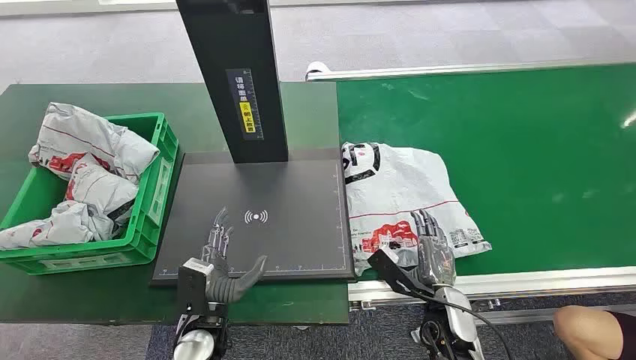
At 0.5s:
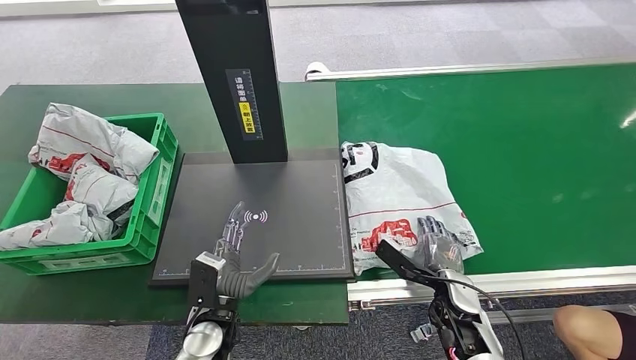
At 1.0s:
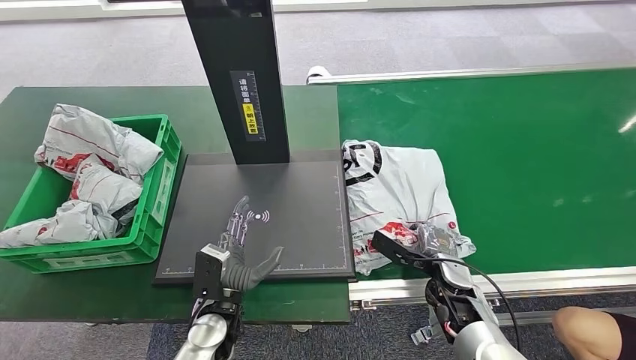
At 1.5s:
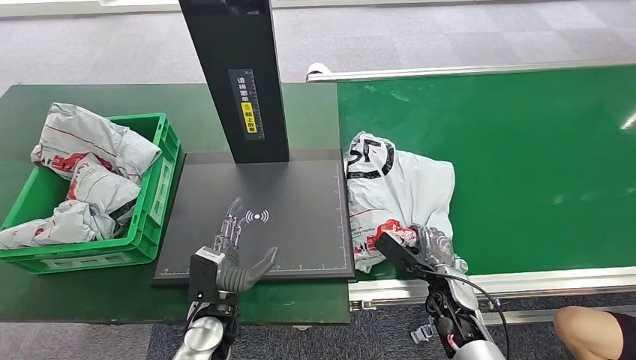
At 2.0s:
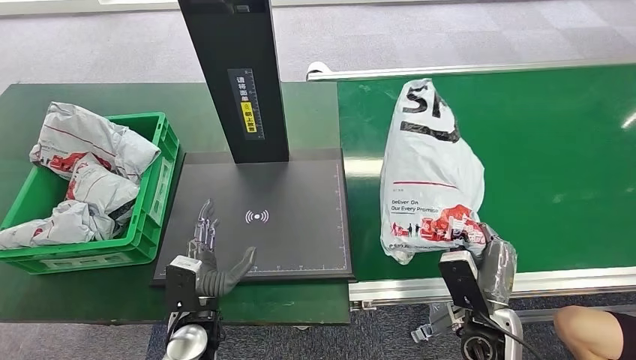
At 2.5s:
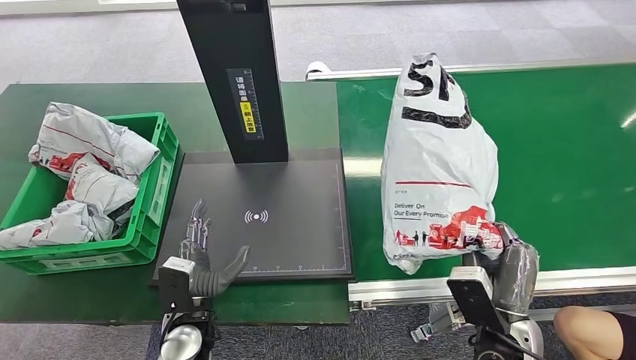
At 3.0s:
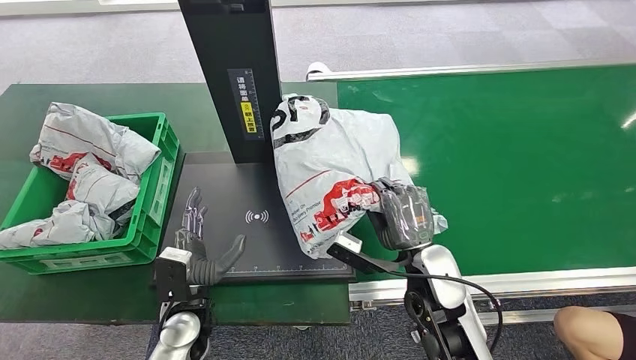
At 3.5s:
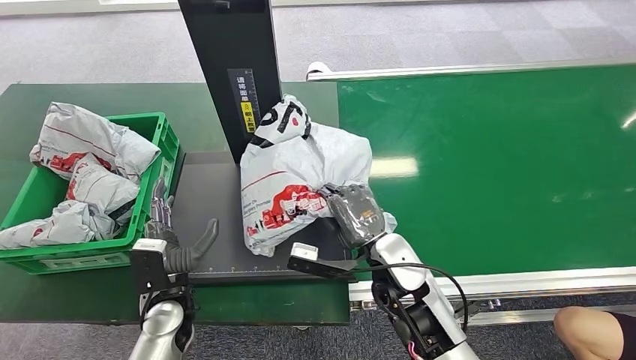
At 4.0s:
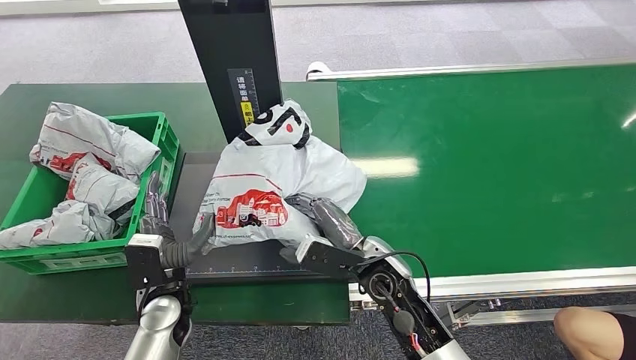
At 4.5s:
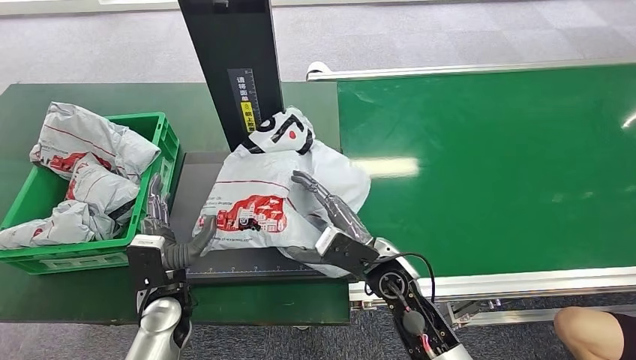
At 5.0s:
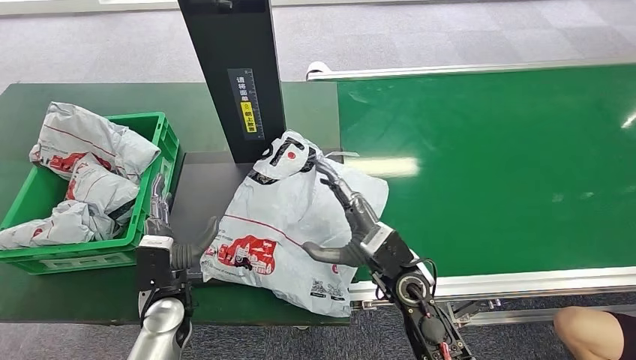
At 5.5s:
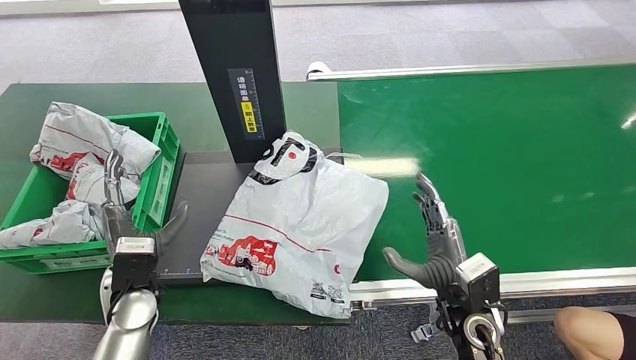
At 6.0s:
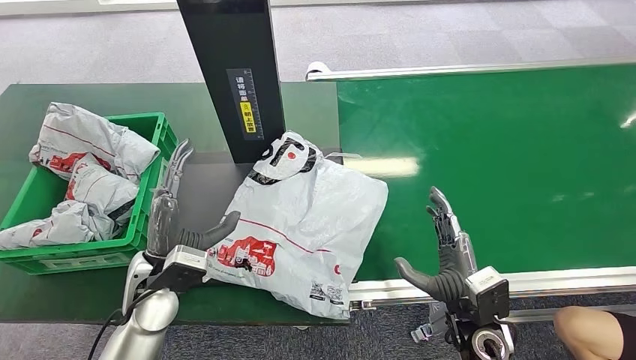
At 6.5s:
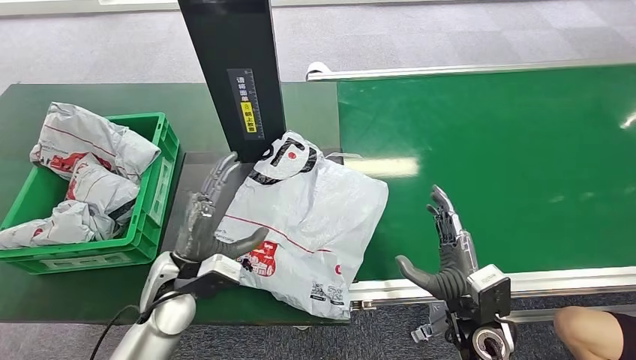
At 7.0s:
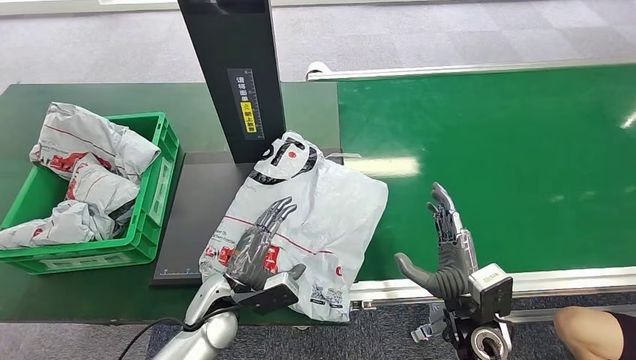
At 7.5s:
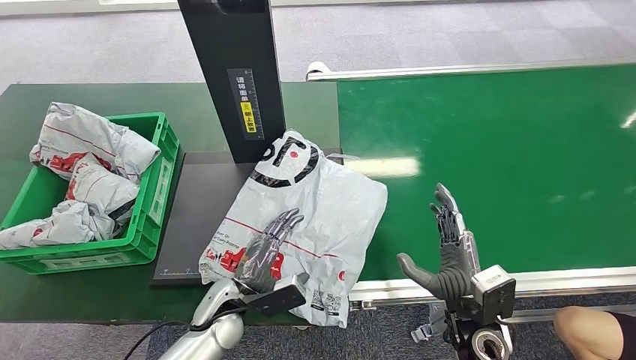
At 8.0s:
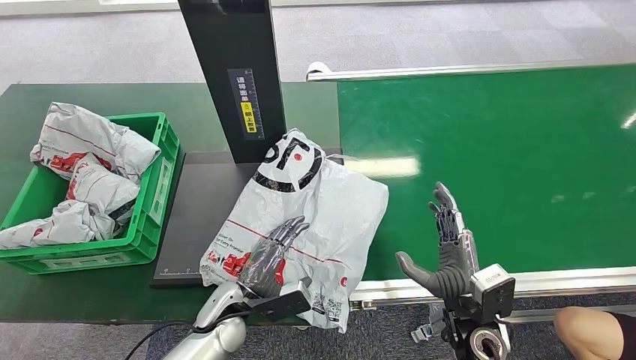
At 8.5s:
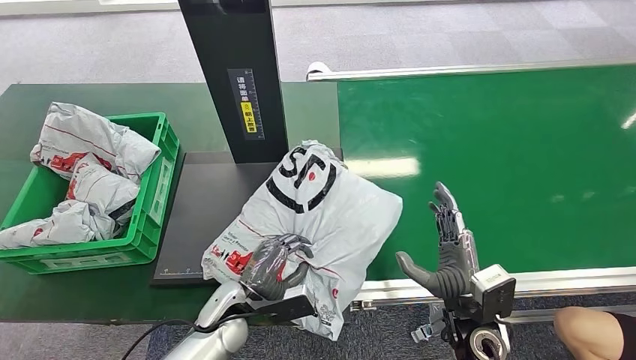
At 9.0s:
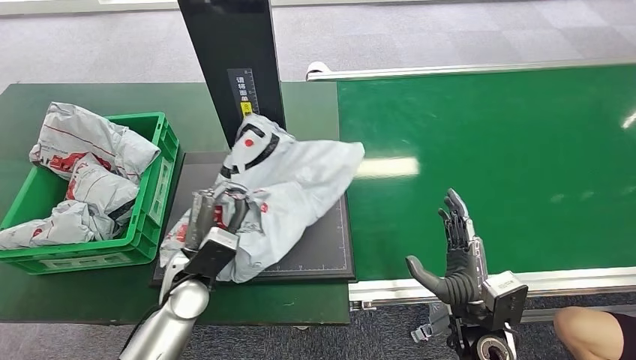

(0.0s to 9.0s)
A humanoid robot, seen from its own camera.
Step, 0.0s - 2.5s: Pick up the package from the conveyor belt.
Step, 3.0s - 5.5s: Place the package onto the inbound machine.
4.5s - 7.0s: The right hand goes about 15 cm to the right and backward. Meanwhile the left hand travels to the right by about 5 cm.
7.0s - 9.0s: The left hand moves approximately 5 cm.

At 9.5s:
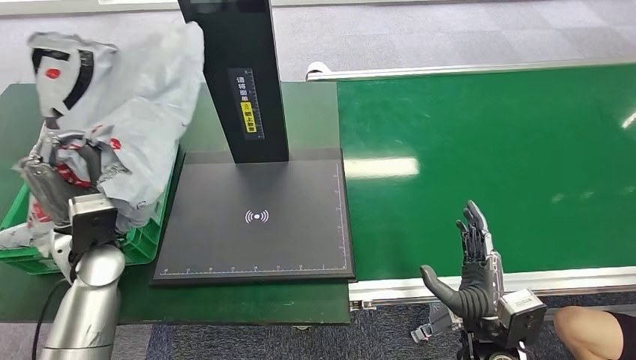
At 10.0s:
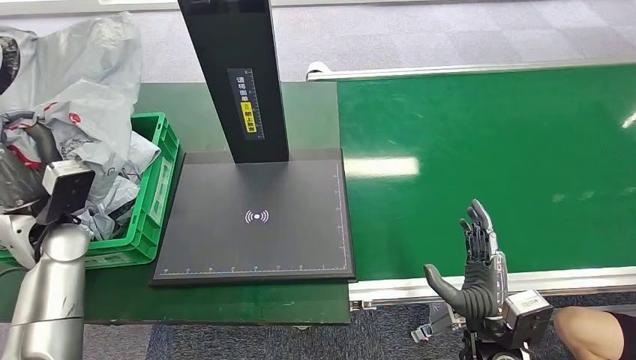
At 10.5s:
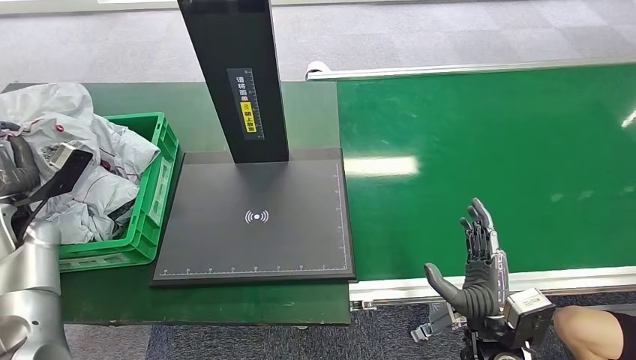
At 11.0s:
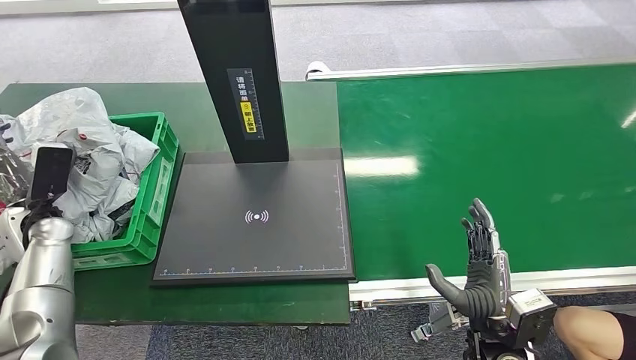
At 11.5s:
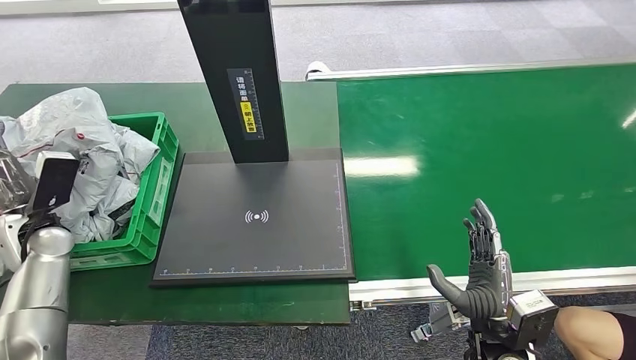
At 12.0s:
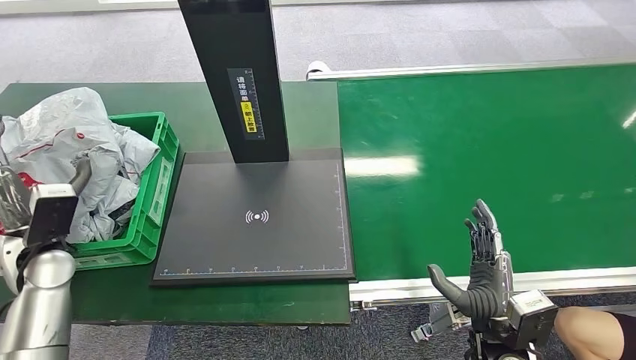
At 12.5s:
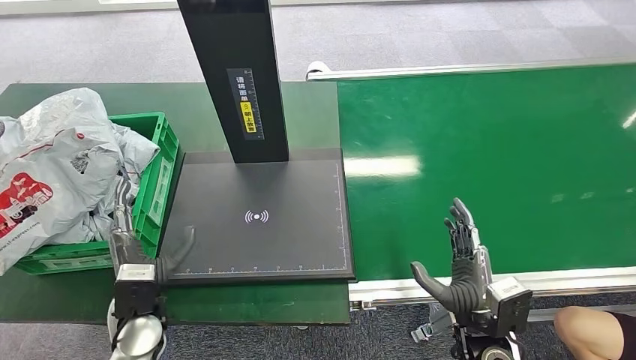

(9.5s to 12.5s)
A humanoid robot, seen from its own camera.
Step, 10.0s - 12.5s: Place the package into the parcel locker.
9.5s - 11.0s: The left hand moves to the left, roughly 15 cm.
11.0s - 12.5s: The left hand goes about 25 cm to the right and backward.
